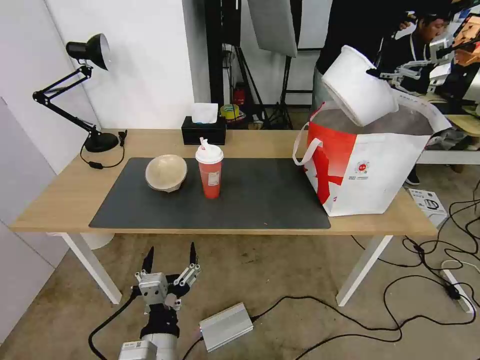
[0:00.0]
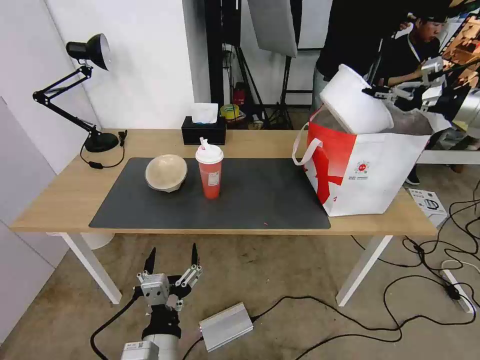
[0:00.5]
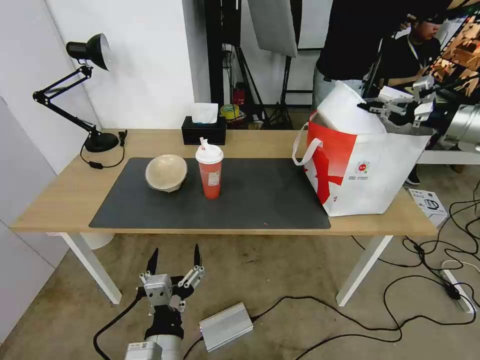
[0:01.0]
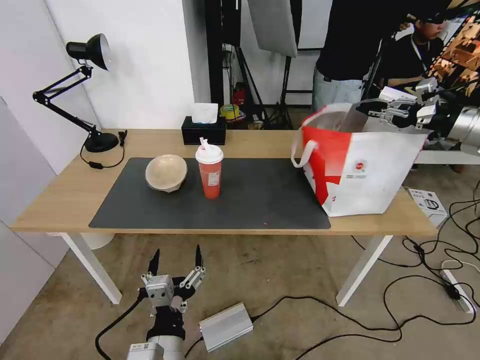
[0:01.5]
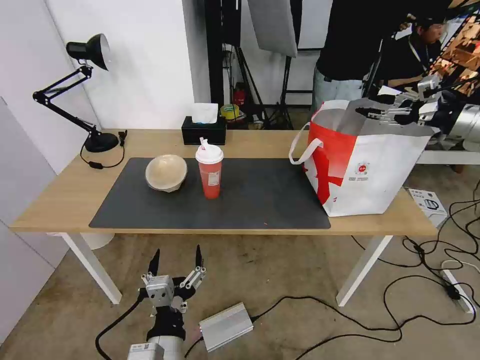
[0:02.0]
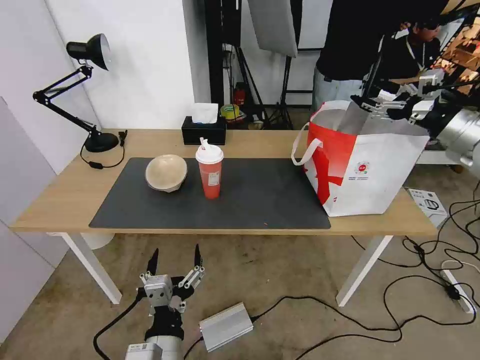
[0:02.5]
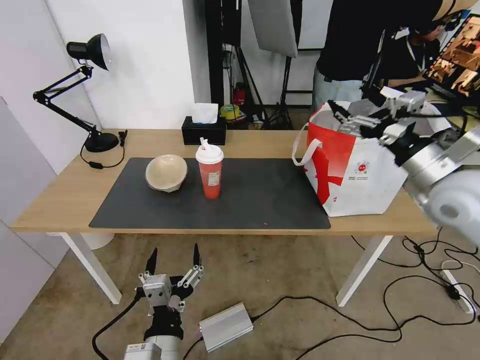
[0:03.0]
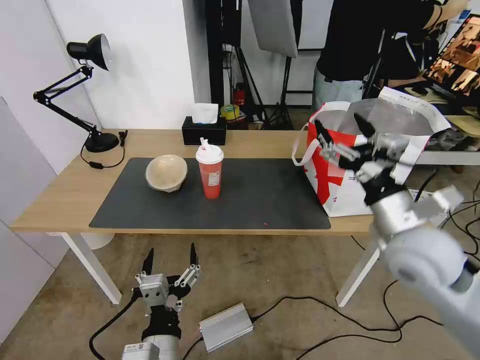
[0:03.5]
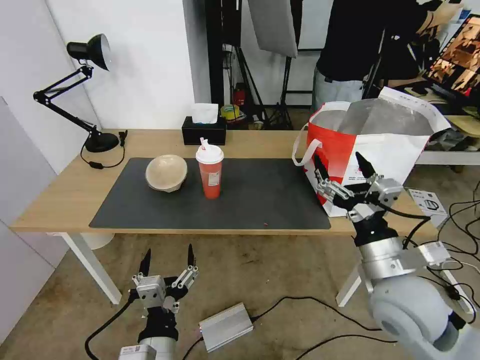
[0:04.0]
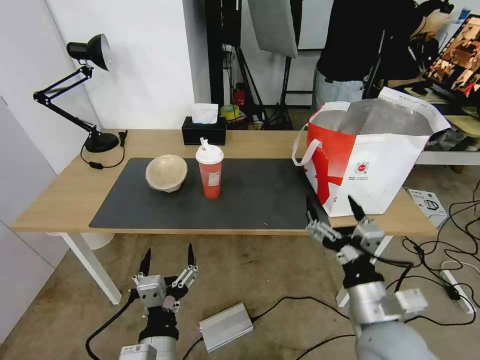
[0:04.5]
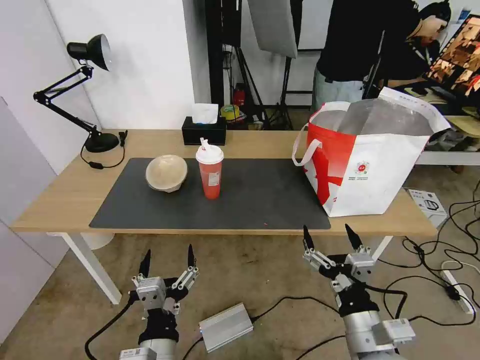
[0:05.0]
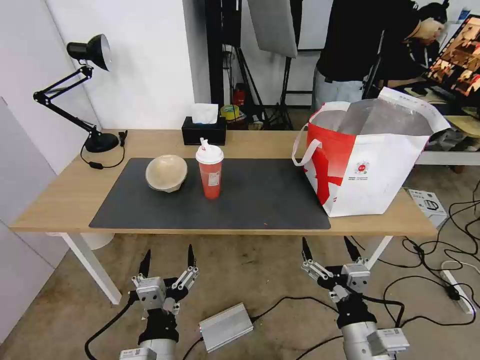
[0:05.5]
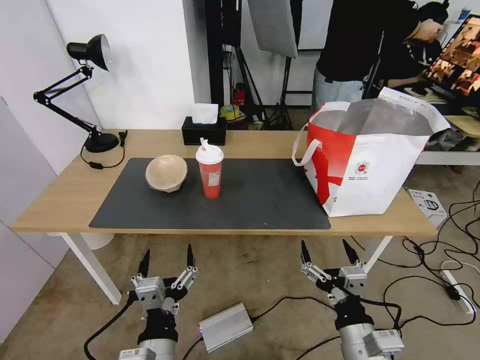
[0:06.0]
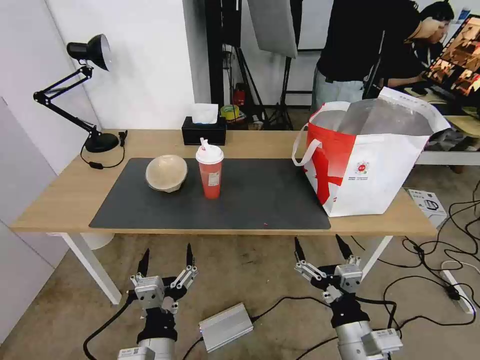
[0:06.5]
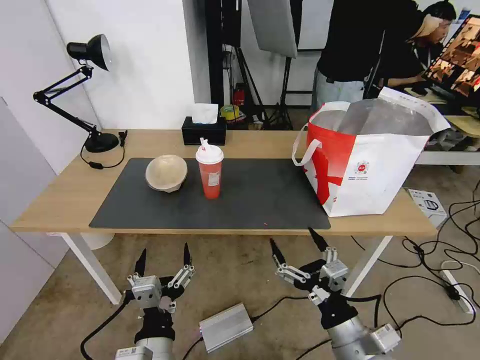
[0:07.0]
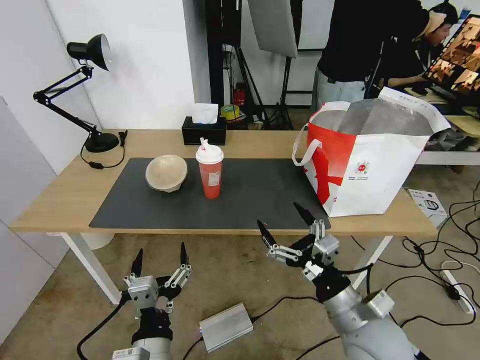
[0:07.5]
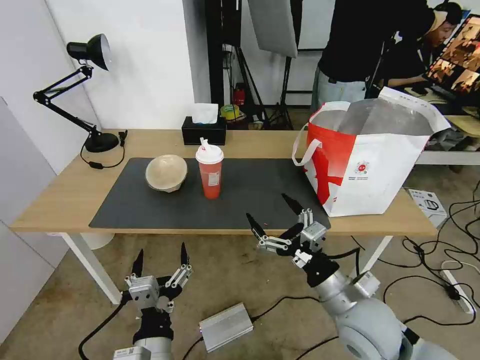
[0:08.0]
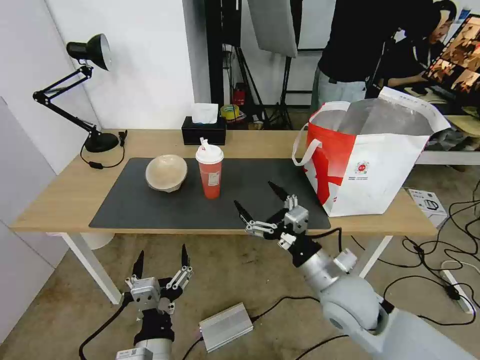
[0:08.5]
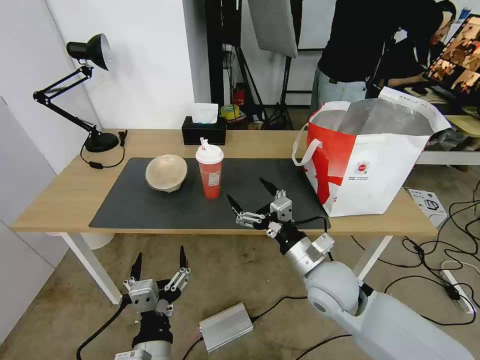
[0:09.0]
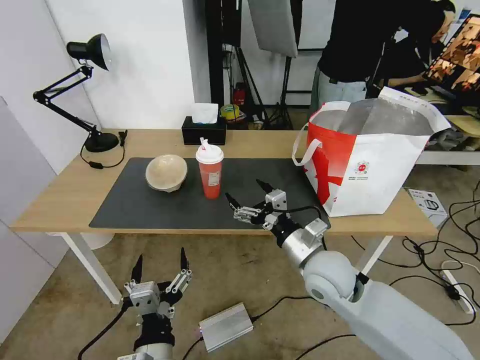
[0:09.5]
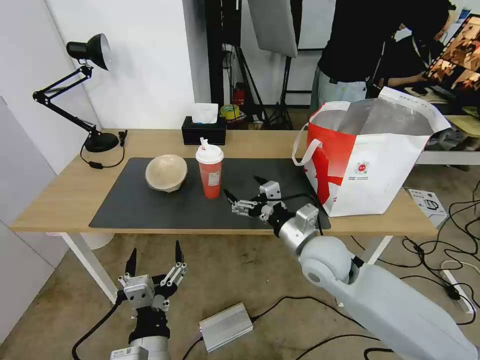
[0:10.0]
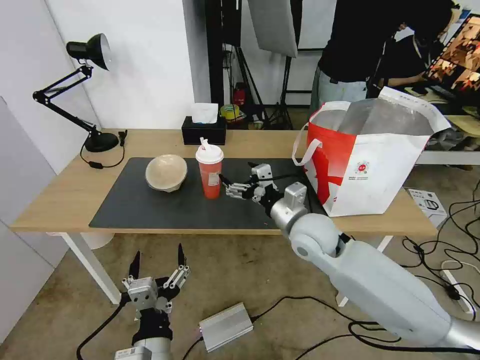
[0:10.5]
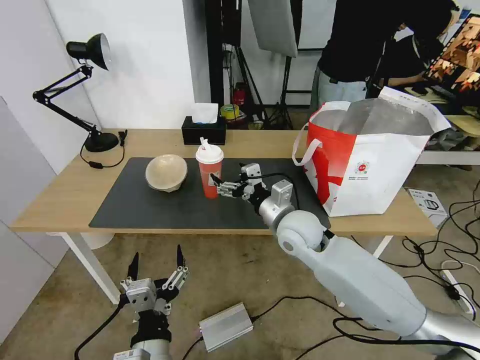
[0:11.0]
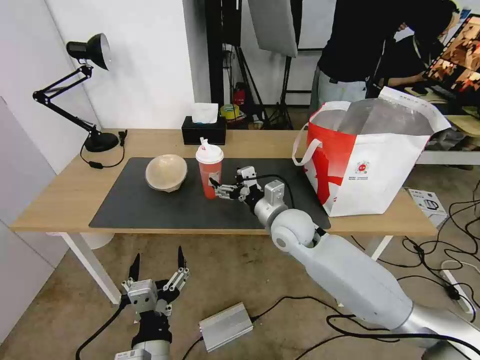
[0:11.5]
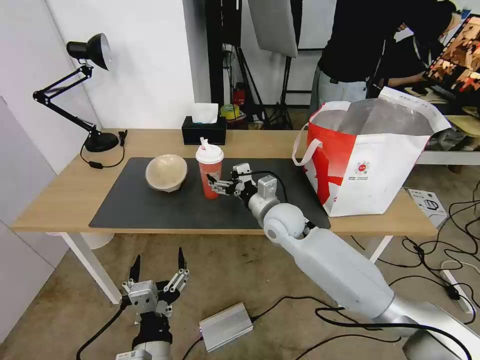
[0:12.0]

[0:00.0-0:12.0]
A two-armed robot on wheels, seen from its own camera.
Task of the whole recording: Pick up the trash from the table and place it into the takeout bag.
0:00.0 to 0:02.0: The right gripper goes roughly 5 cm downward, and opens up.
0:02.0 to 0:04.0: The right gripper moves to the left, backward and downward, some 40 cm.
0:04.0 to 0:06.0: The right gripper moves backward and downward, roughly 15 cm.
0:06.0 to 0:08.0: The right gripper is displaced forward by approximately 10 cm.
0:08.0 to 0:10.0: The right gripper moves forward, some 10 cm.
0:10.0 to 0:12.0: The right gripper shifts some 10 cm forward and to the left.

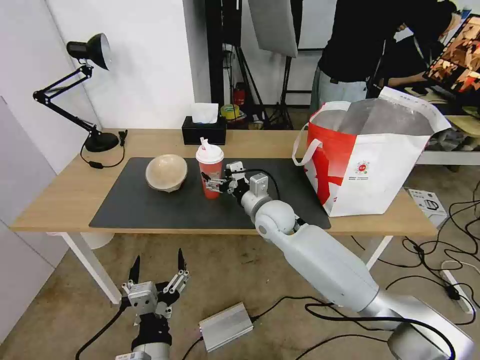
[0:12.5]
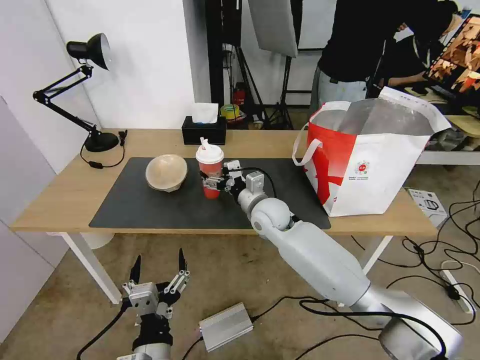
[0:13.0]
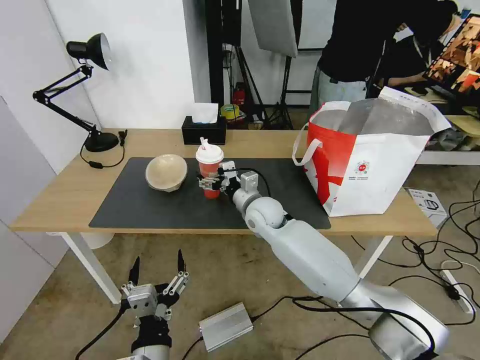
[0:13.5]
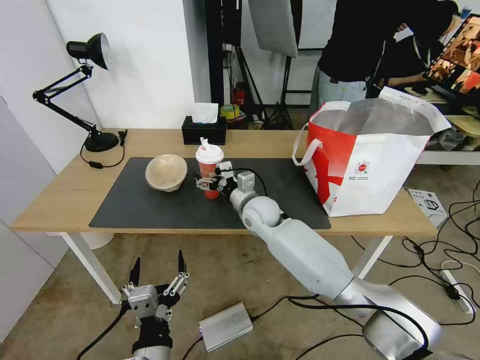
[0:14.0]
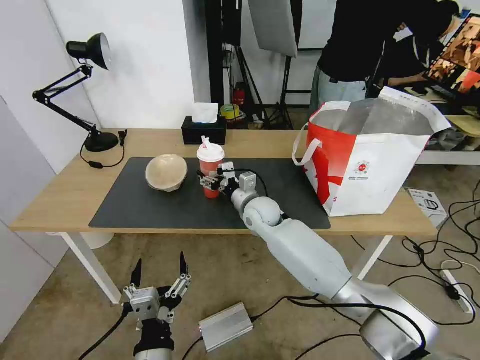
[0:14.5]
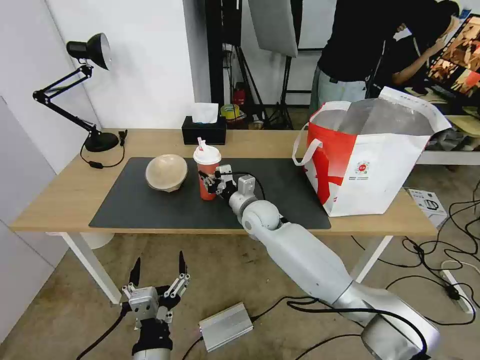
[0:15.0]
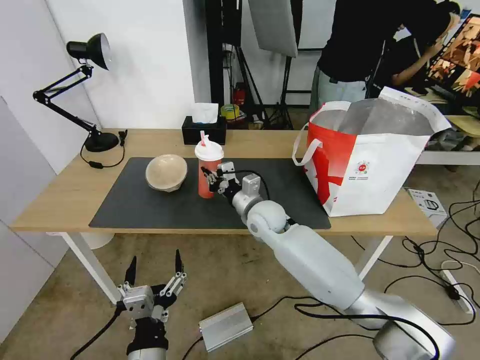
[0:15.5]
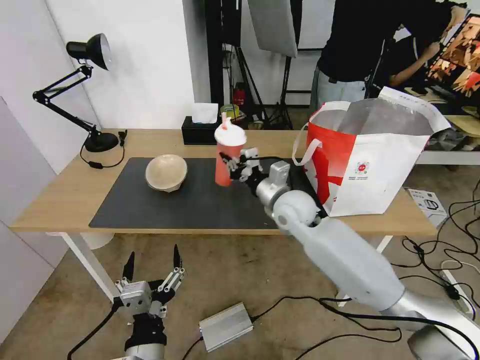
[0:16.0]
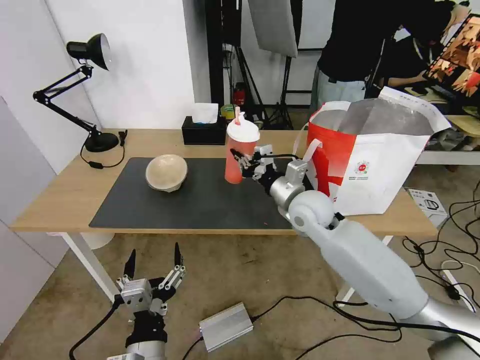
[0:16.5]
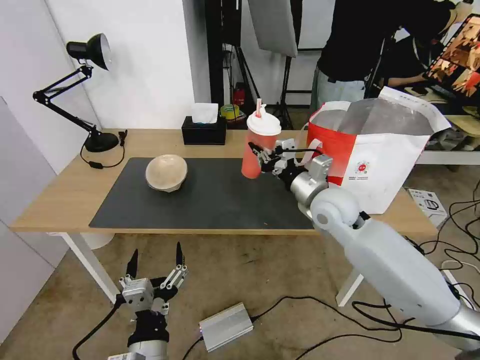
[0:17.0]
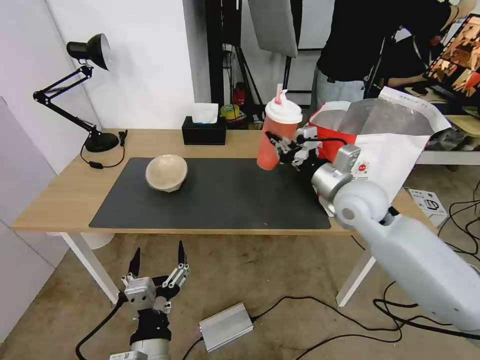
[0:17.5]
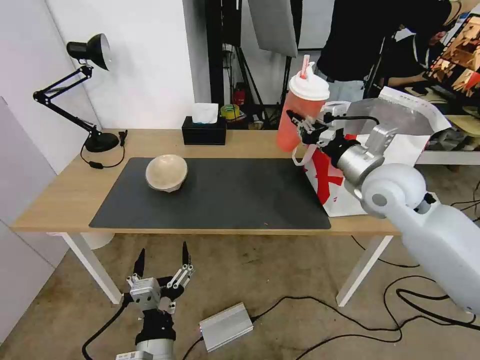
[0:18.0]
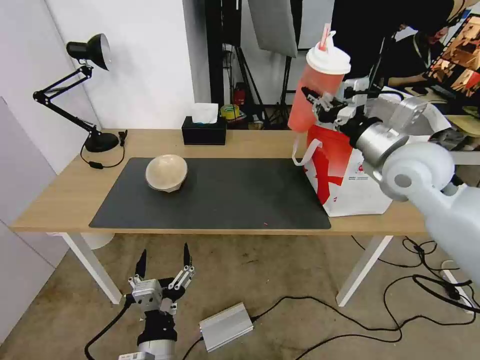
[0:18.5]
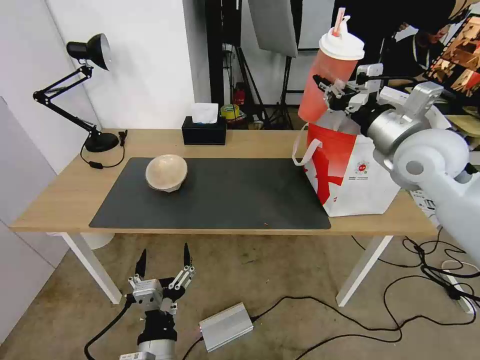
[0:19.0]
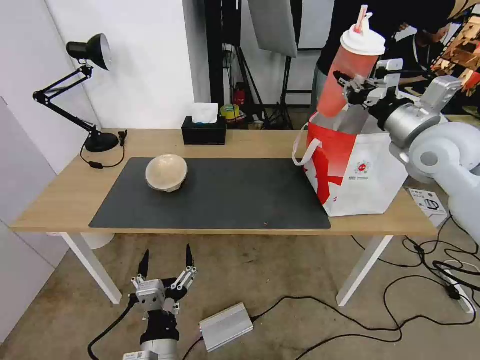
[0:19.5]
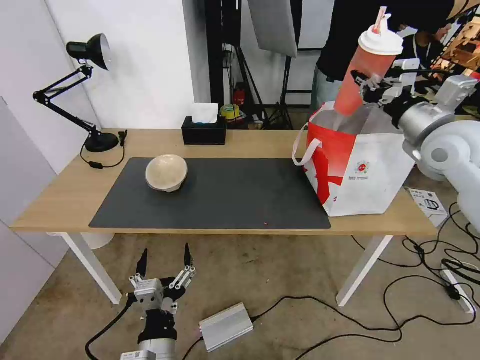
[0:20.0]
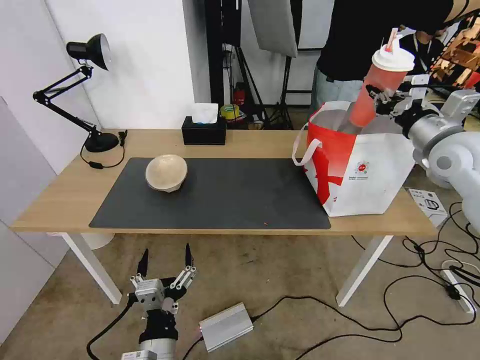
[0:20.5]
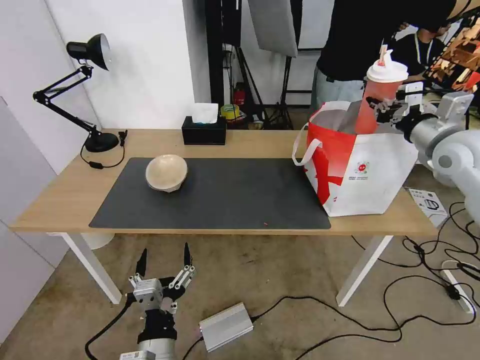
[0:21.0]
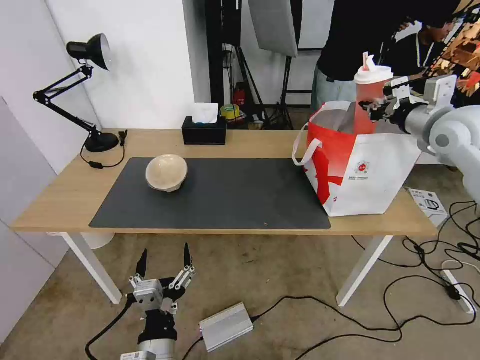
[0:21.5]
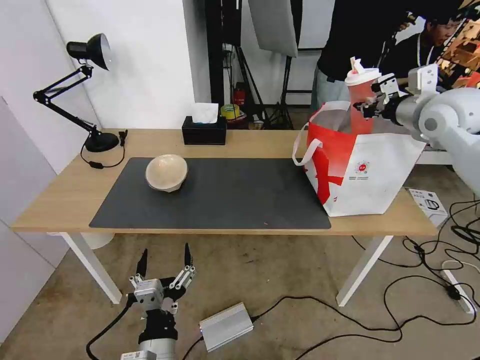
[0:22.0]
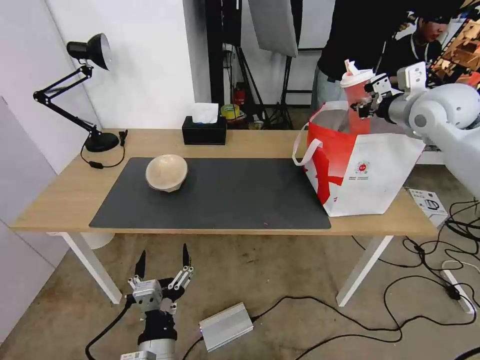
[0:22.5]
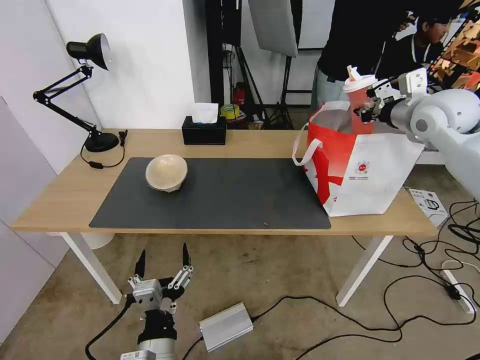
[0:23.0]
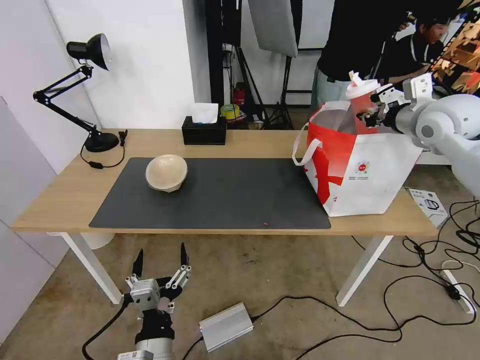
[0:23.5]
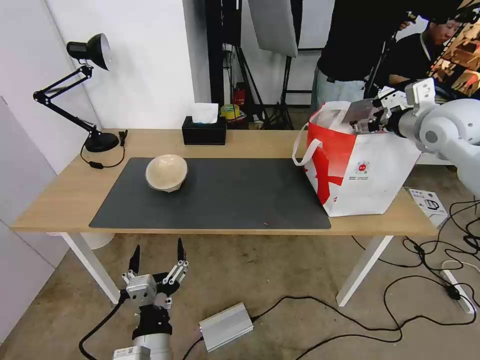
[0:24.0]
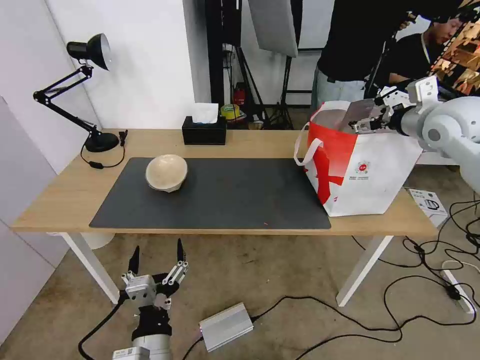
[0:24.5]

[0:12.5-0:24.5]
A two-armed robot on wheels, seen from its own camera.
Task of the whole recording: Pick up the trash from the table and place it into the takeout bag.
0:12.5 to 0:14.5: The right gripper changes place by some 5 cm.
0:14.5 to 0:16.5: The right gripper travels to the right, upward and backward by about 15 cm, and closes.
0:16.5 to 0:18.5: The right gripper goes approximately 20 cm upward and to the right.
0:18.5 to 0:20.5: The right gripper is displaced to the right by about 10 cm.
0:20.5 to 0:22.5: The right gripper heads forward and upward, covering approximately 10 cm.
0:22.5 to 0:24.5: The right gripper opens its fingers.

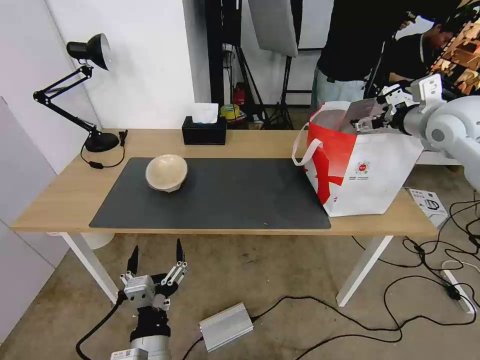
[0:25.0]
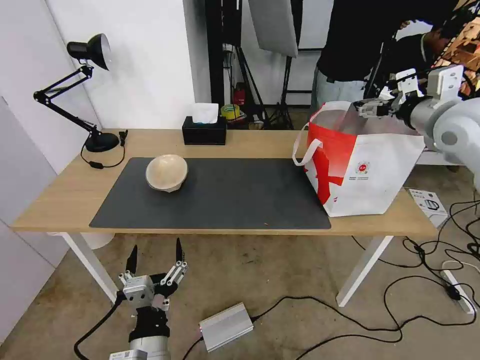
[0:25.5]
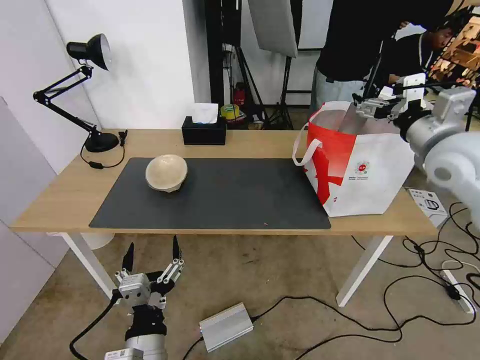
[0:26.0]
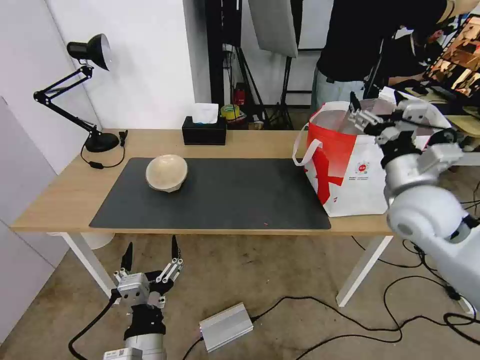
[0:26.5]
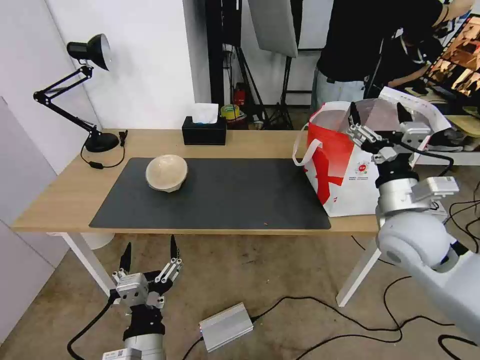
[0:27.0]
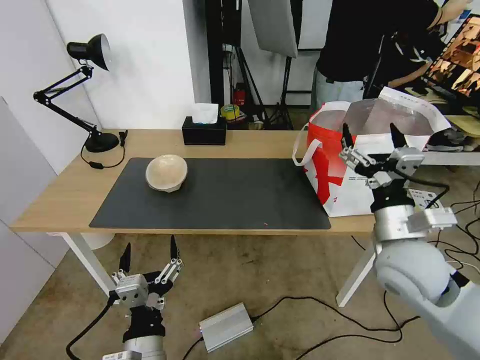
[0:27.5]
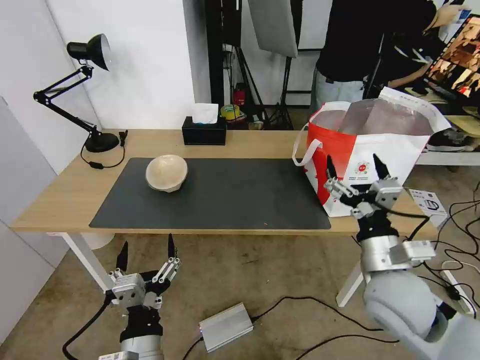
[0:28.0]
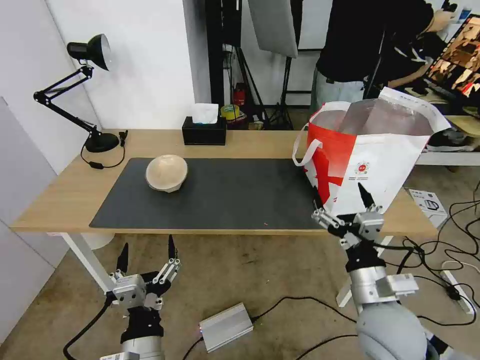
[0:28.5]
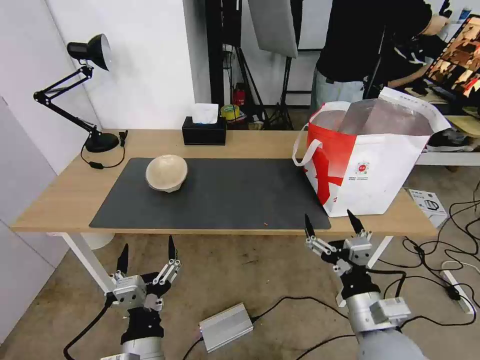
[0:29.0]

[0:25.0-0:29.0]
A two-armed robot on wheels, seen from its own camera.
Task of the whole recording: Pick up the trash from the table and place it into the takeout bag.
0:25.0 to 0:27.0: The right gripper is displaced backward, downward and to the left by some 25 cm.
0:27.0 to 0:29.0: The right gripper is displaced backward and downward by approximately 20 cm.
